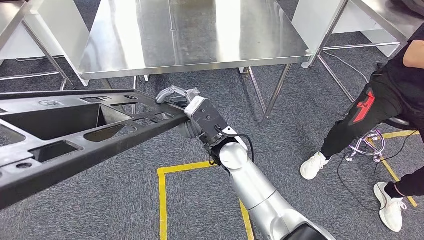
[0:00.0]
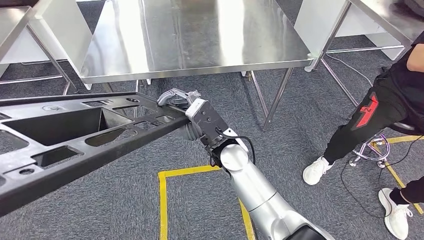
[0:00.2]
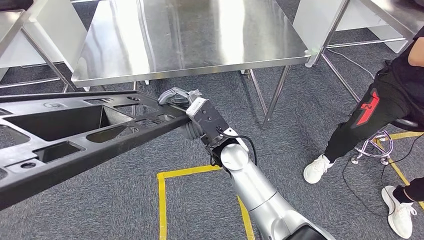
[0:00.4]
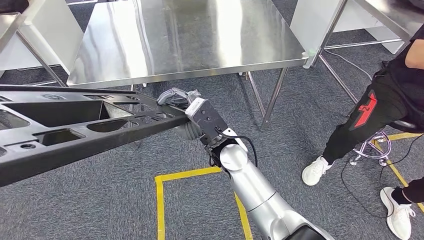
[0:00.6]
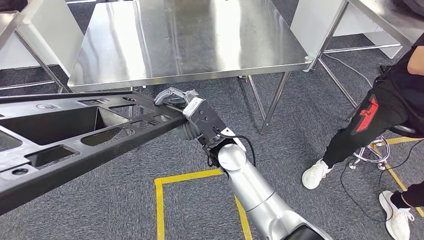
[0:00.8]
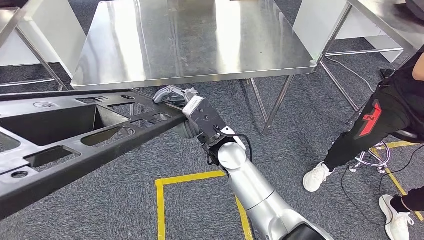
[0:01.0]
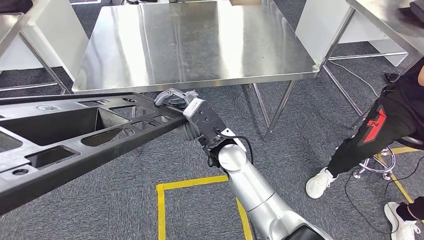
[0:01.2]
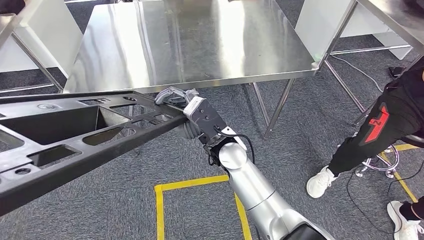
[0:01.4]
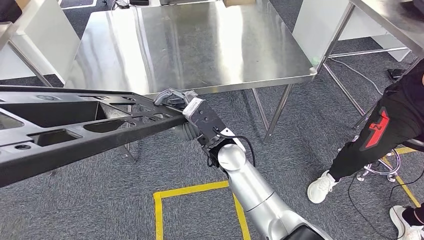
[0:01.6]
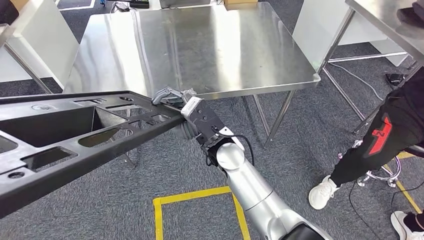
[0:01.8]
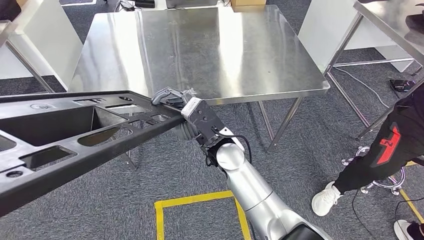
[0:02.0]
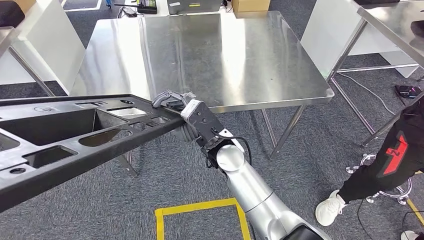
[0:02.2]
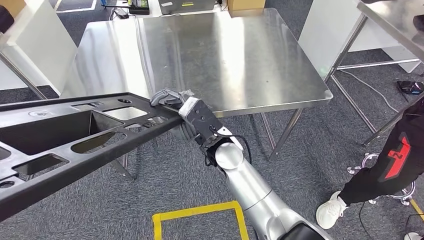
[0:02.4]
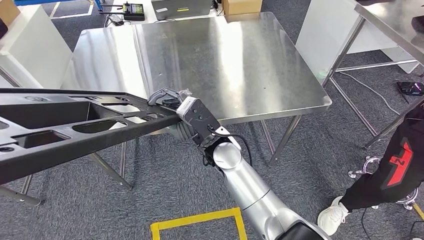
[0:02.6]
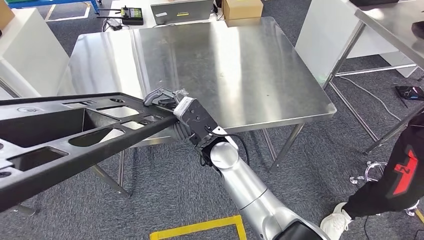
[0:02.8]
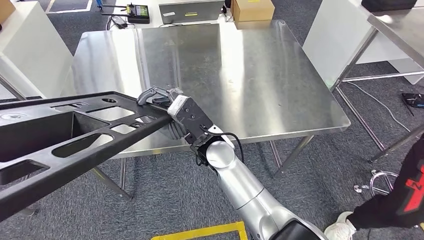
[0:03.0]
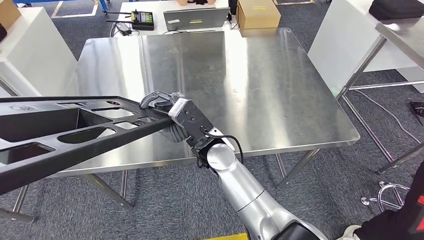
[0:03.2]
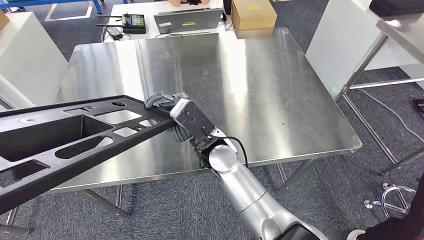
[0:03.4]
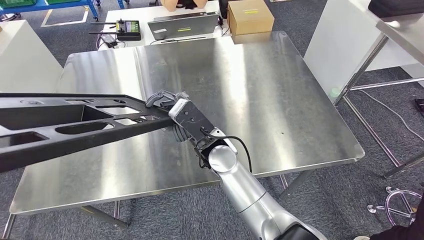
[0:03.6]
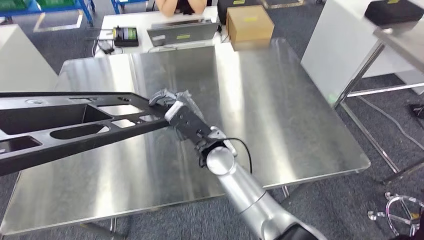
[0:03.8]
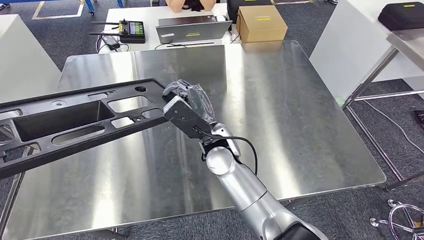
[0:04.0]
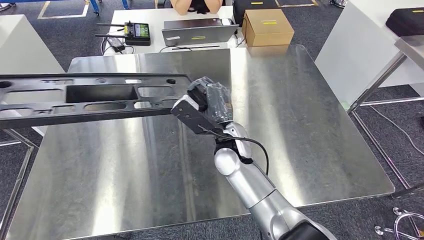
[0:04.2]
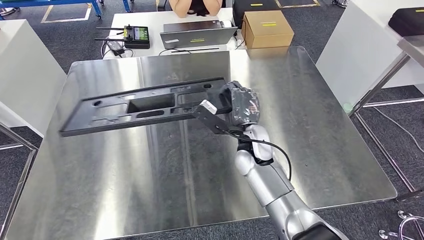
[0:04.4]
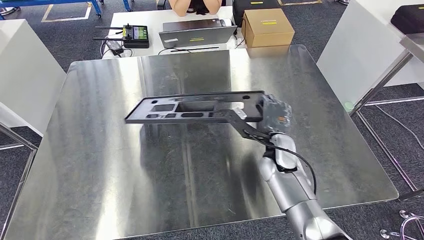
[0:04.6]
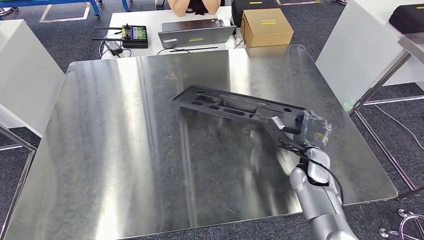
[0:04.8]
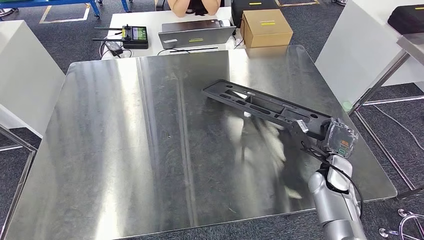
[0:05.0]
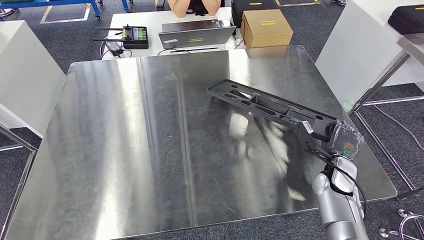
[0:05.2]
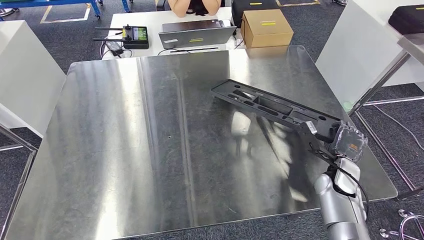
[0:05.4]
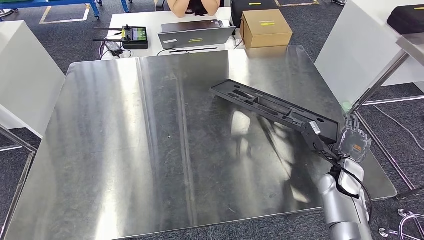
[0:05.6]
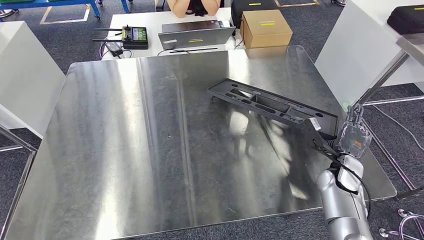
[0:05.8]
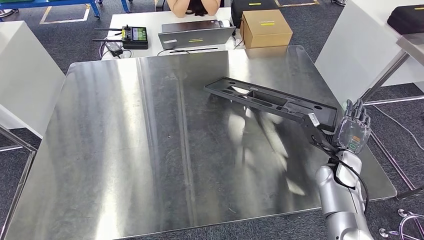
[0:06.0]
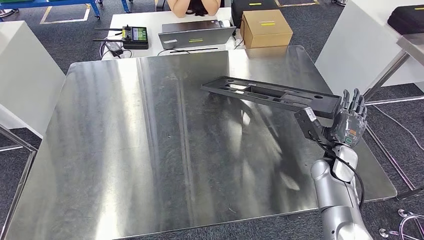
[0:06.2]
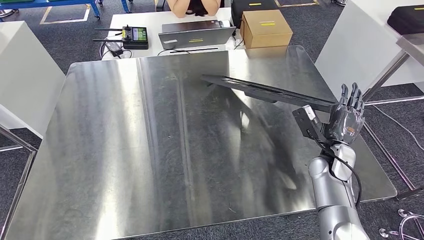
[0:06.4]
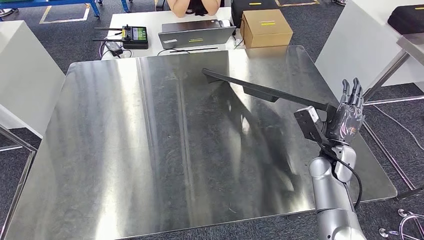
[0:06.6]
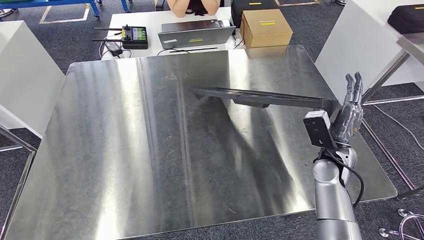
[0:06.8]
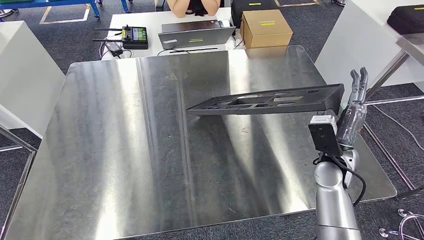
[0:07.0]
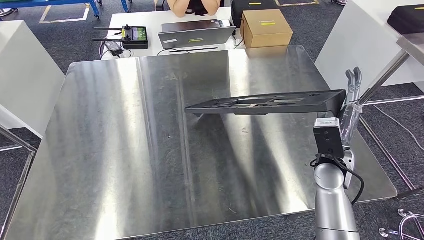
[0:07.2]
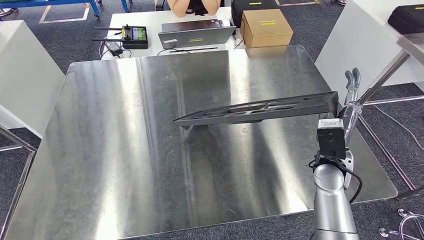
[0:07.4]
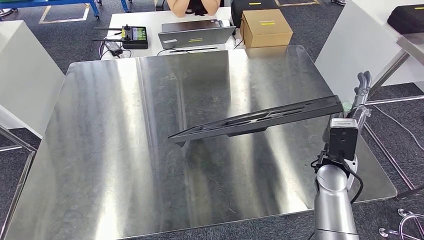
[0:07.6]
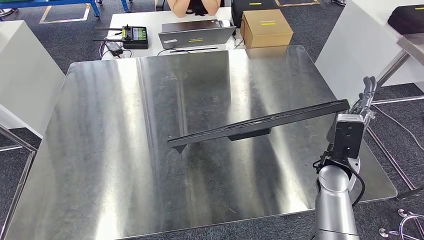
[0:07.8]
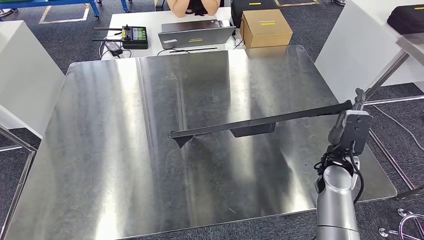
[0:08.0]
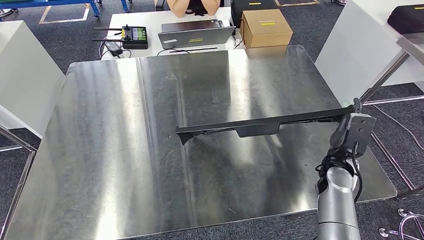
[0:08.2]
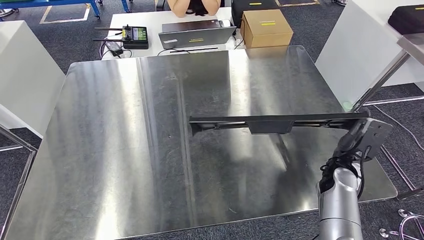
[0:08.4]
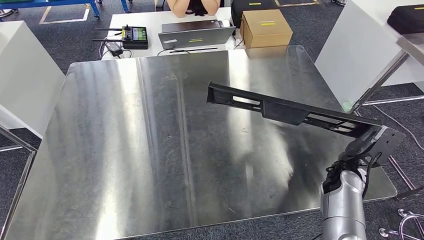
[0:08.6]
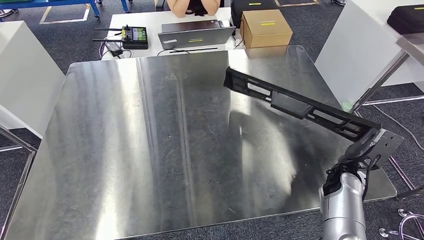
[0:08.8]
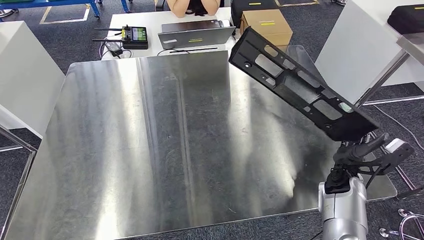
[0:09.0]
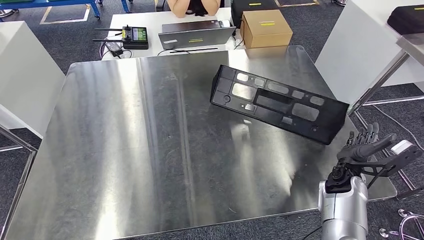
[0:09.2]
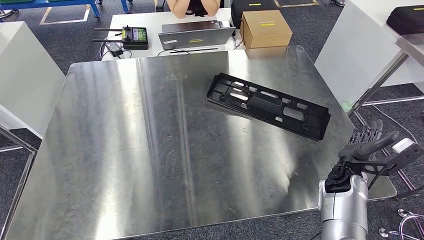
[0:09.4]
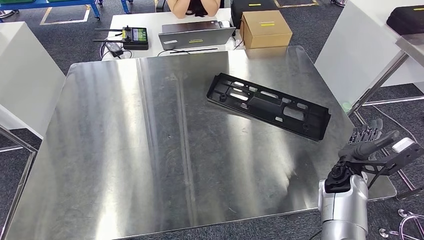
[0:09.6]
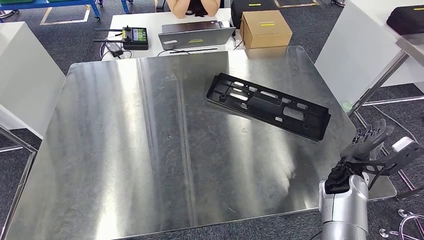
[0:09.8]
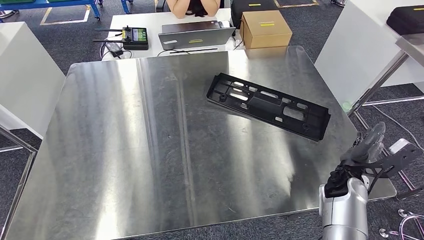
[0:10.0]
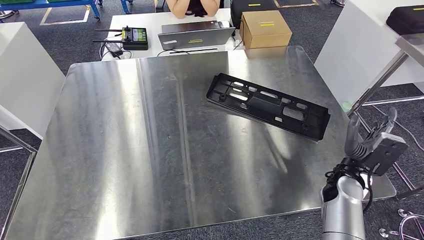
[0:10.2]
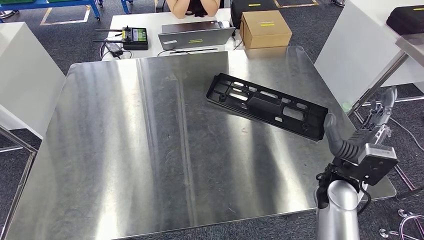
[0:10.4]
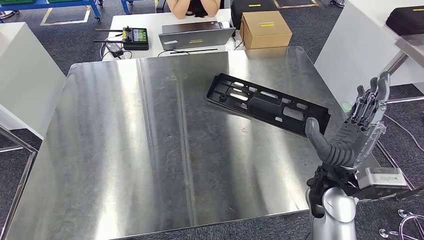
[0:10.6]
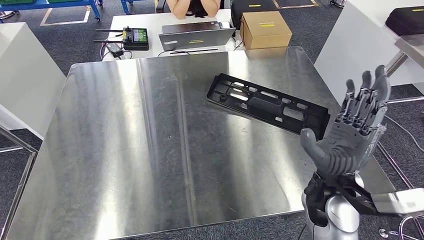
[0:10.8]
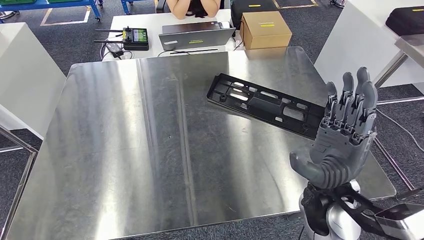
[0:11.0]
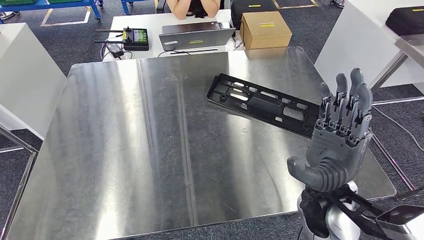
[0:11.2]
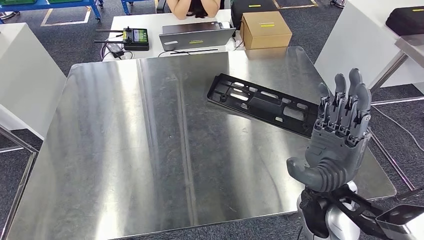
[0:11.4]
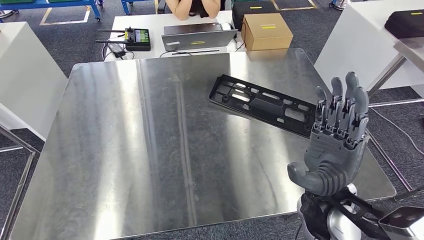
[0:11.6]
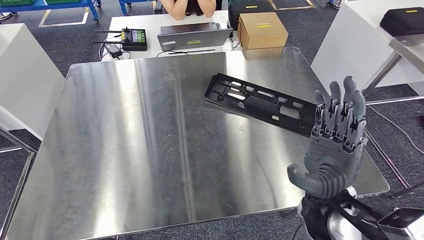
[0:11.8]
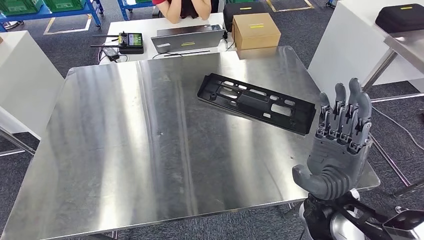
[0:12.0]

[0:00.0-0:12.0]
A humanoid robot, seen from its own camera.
0:06.0 to 0:07.6: The right hand travels to the left and upward by approximately 10 cm.
0:07.6 to 0:09.0: The right hand is displaced downward and to the right by some 10 cm.

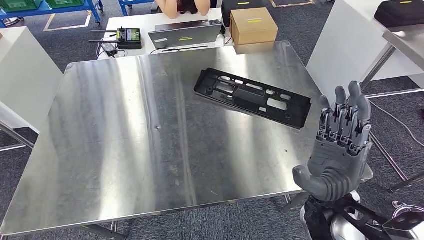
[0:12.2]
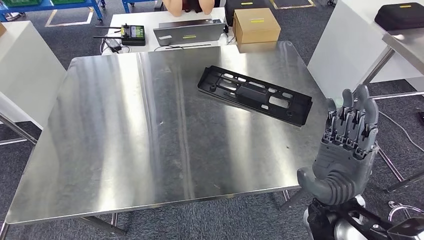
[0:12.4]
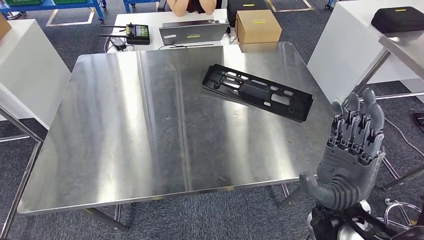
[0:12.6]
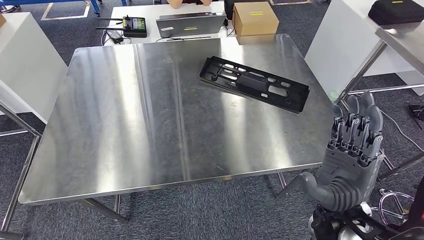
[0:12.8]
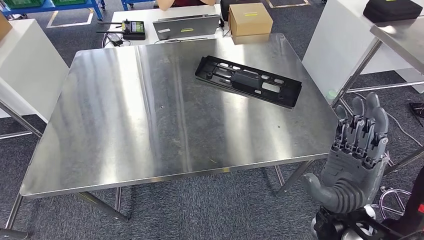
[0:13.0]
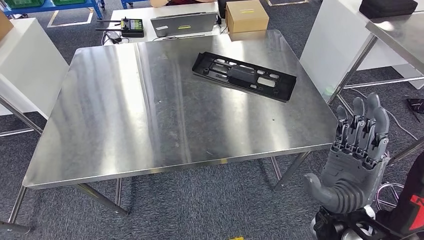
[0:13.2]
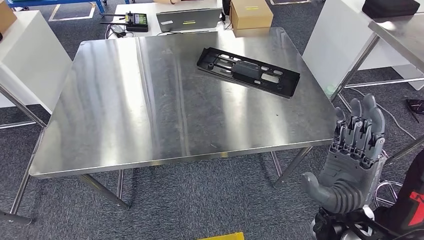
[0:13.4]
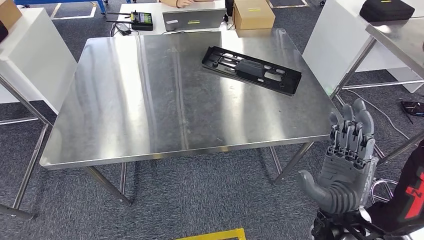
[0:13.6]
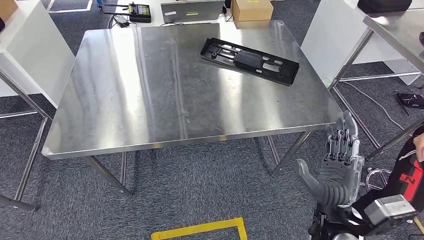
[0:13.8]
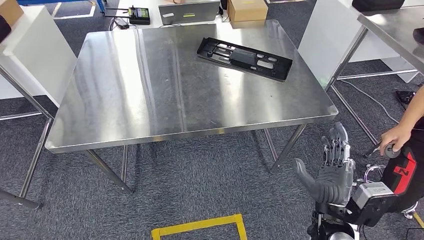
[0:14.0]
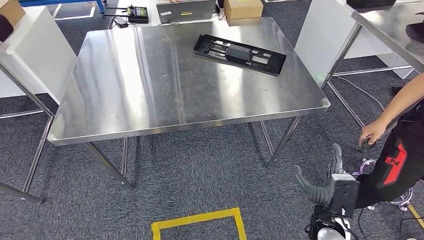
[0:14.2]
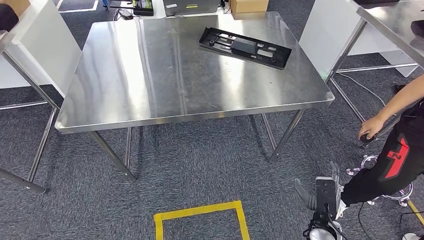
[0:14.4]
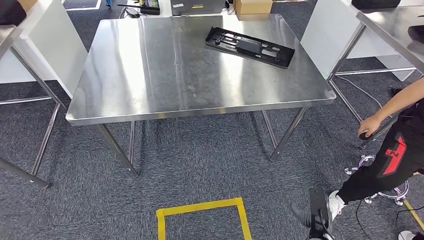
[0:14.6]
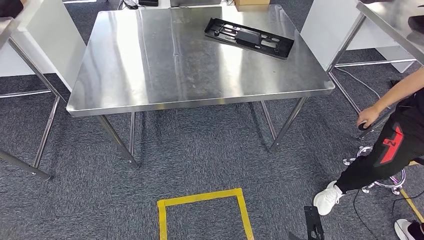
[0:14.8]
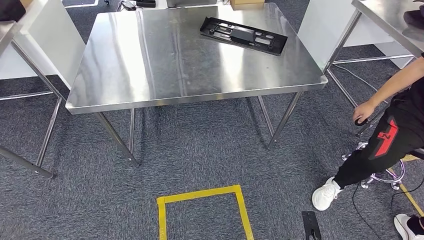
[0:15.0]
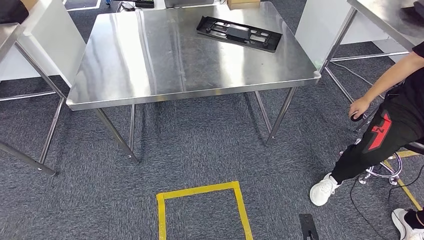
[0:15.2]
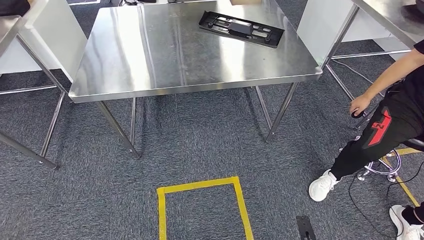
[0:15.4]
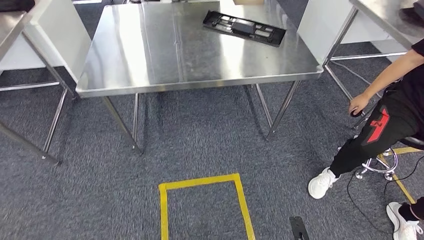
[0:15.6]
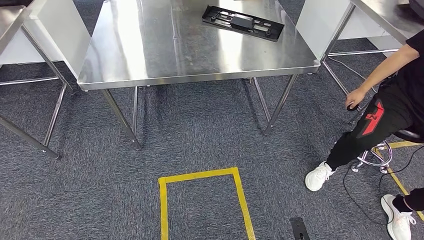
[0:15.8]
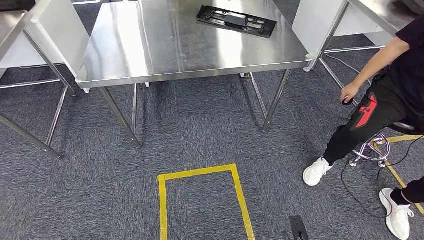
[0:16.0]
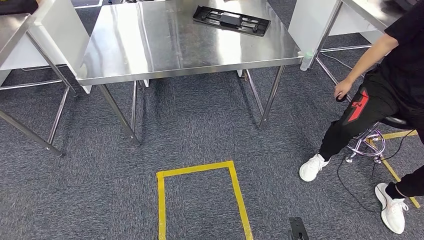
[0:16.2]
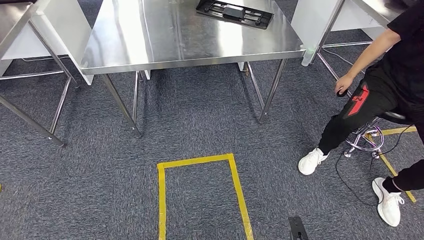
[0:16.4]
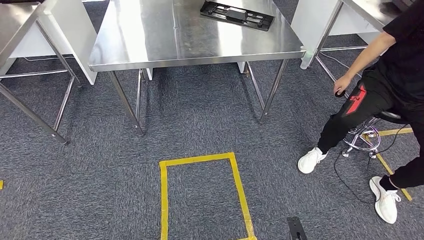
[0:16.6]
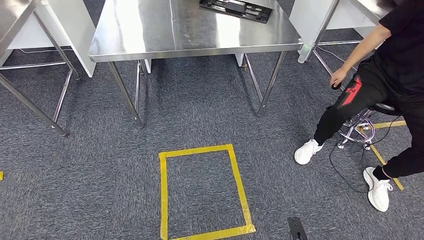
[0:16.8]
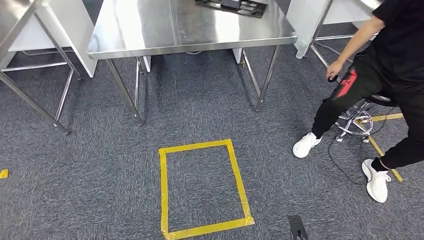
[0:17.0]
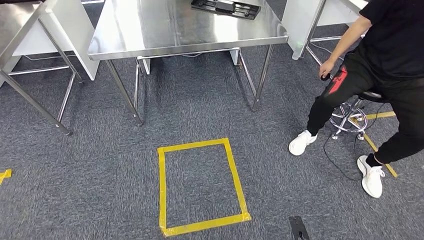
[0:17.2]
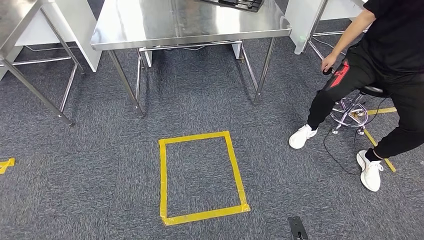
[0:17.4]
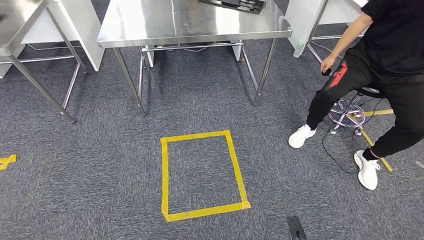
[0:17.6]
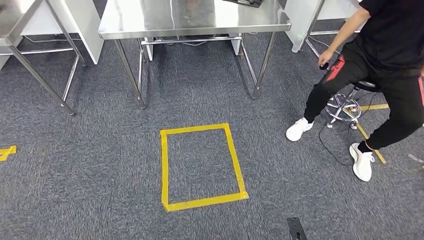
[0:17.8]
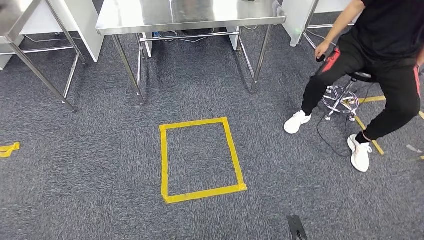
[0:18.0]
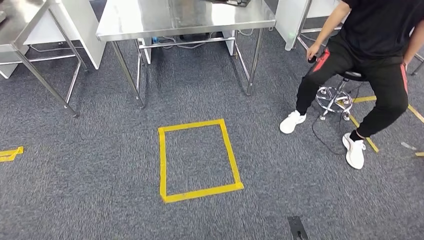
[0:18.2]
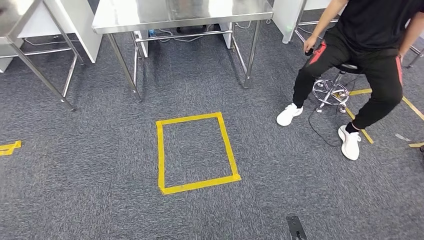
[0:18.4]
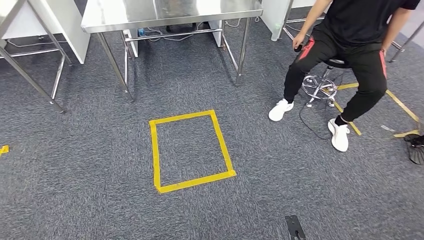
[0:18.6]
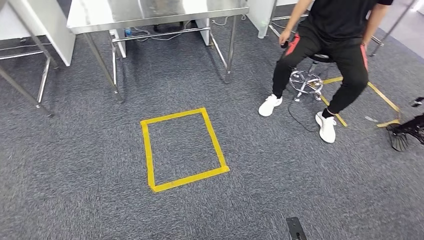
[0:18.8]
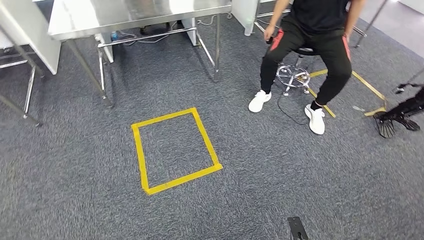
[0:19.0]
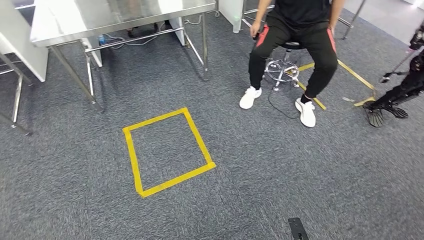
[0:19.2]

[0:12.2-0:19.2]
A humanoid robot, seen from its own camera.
Step, 0:12.2 to 0:15.2: Insert the large material into the corresponding slot on the workbench.
